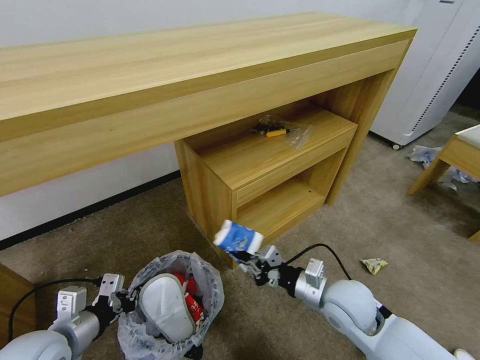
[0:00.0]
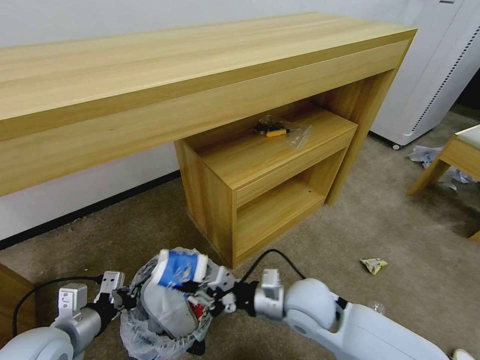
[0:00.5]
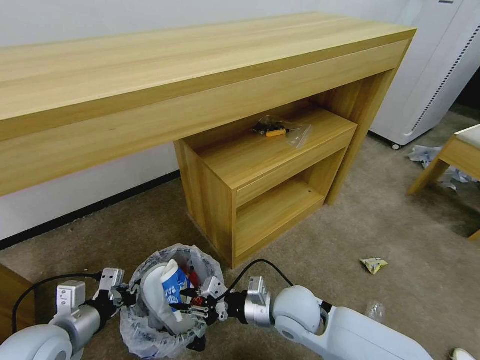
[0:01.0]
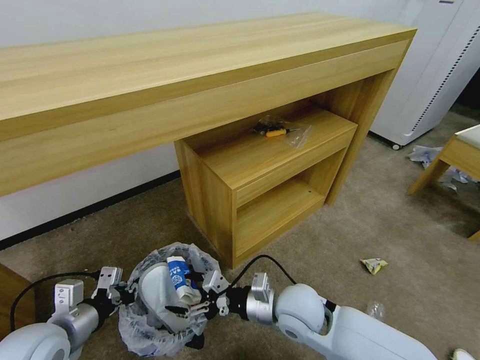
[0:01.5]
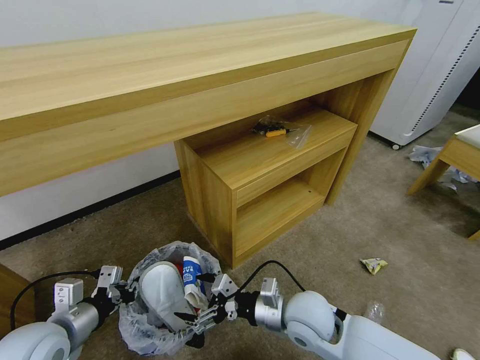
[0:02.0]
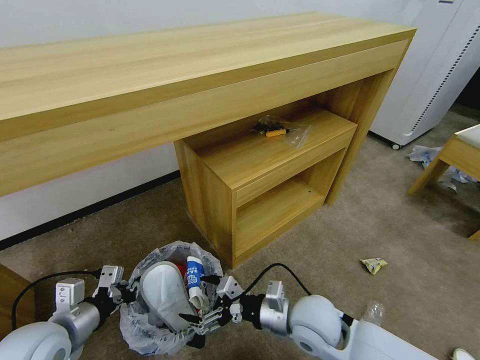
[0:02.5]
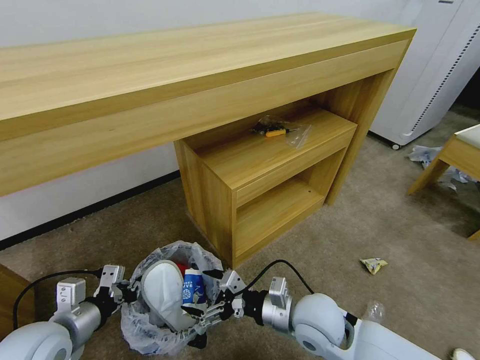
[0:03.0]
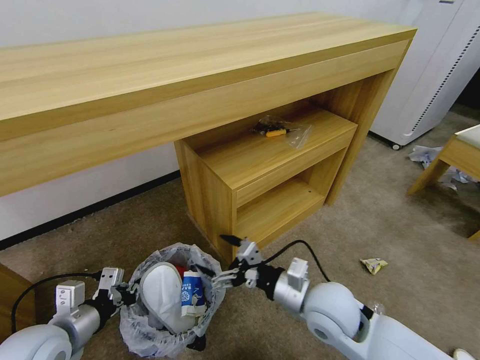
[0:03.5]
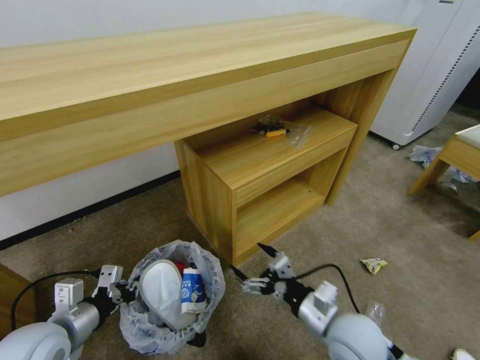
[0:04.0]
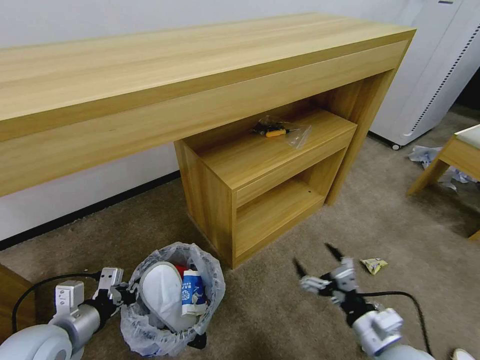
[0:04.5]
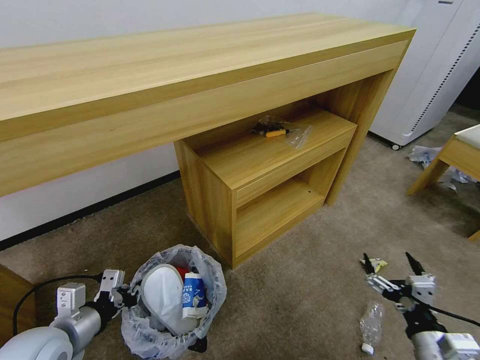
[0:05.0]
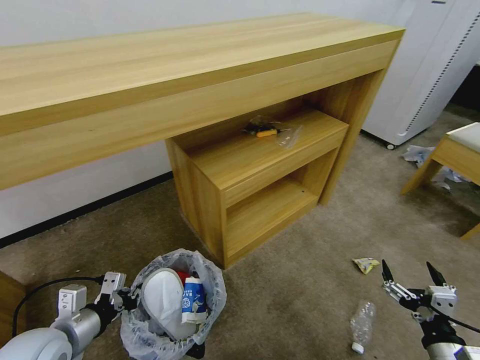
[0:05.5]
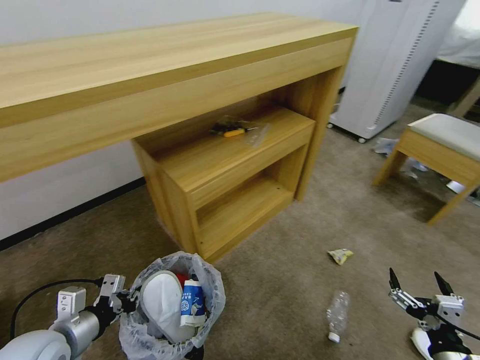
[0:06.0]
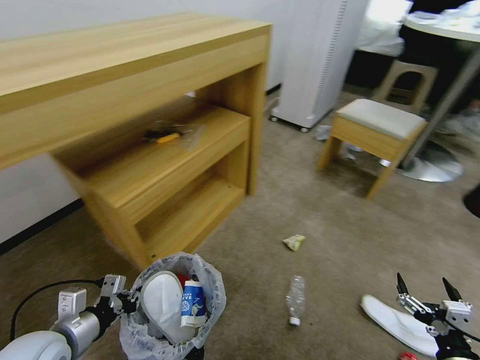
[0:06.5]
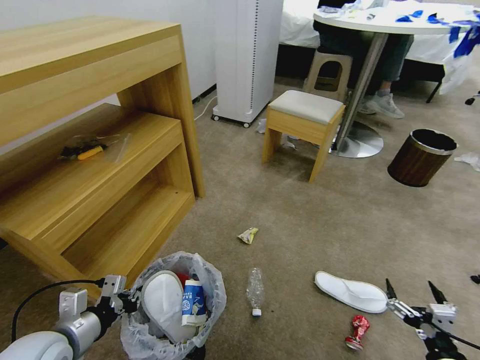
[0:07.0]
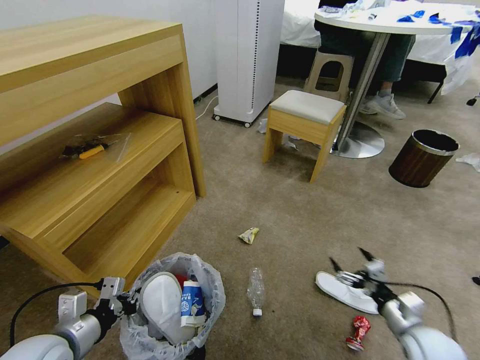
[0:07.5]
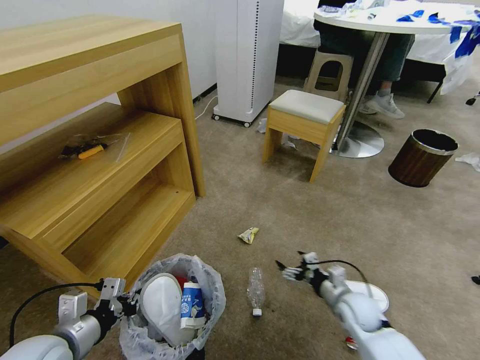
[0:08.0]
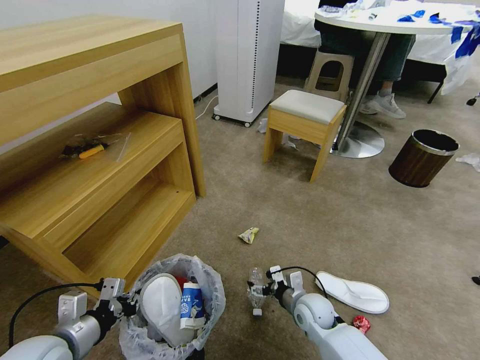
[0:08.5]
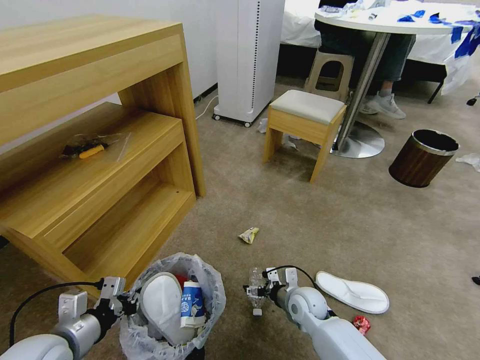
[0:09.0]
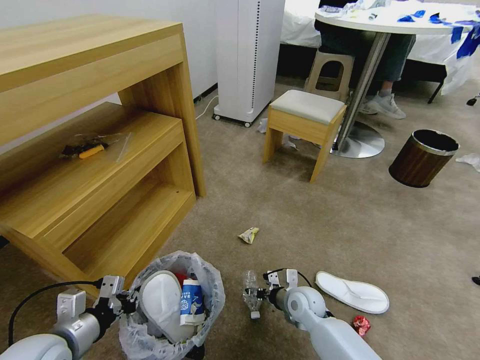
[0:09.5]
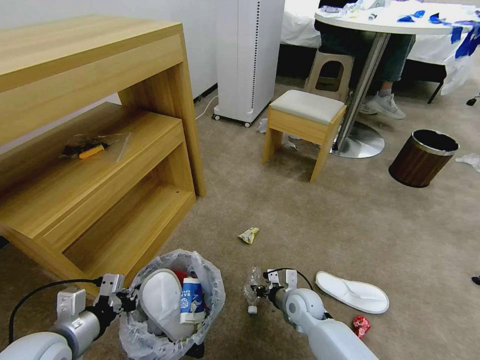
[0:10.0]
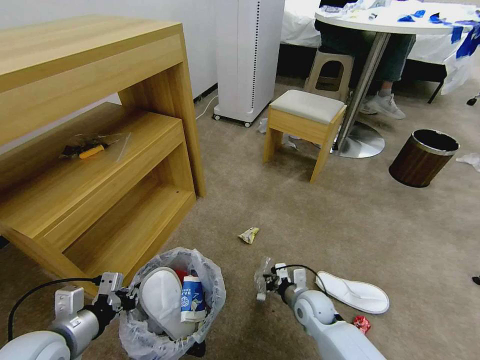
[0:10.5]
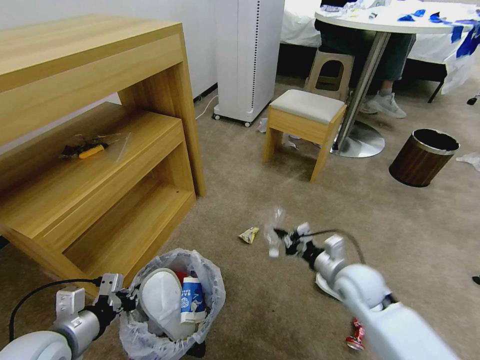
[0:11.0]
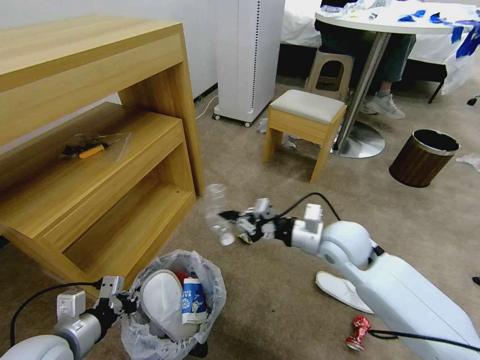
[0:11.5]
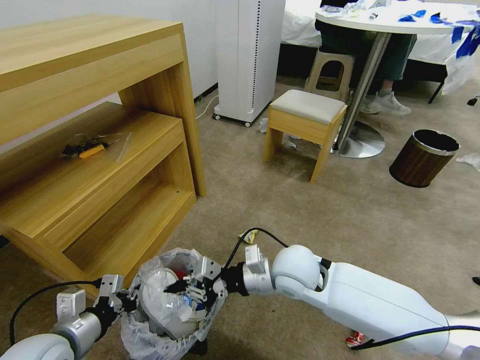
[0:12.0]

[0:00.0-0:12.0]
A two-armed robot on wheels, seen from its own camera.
Task of the whole recording: Pick up the trash bin and place the garbage on the floor into it.
0:00.0 to 0:02.0: The right gripper heads to the left, covering about 10 cm, and opens up.
0:02.0 to 0:04.0: The right gripper moves to the right, some 5 cm.
0:04.0 to 0:06.0: The right gripper moves to the right and backward, about 20 cm.
0:06.0 to 0:08.0: The right gripper shifts about 25 cm forward, to the left and downward.
0:08.0 to 0:10.0: The right gripper travels to the left by approximately 15 cm, and closes up.
0:10.0 to 0:12.0: The right gripper moves upward, approximately 20 cm.

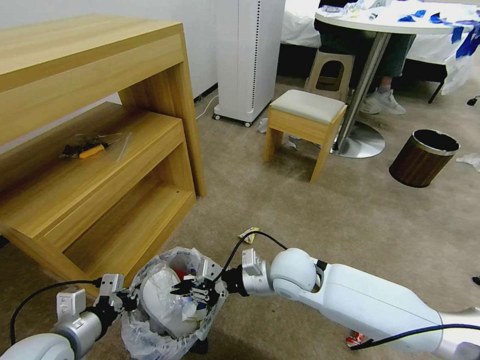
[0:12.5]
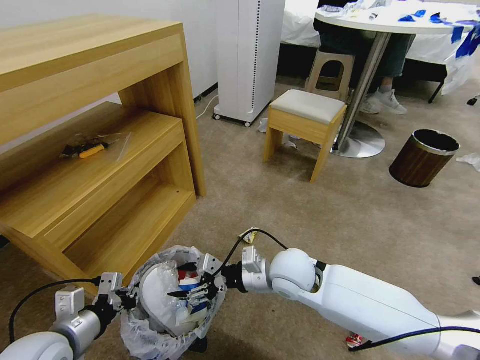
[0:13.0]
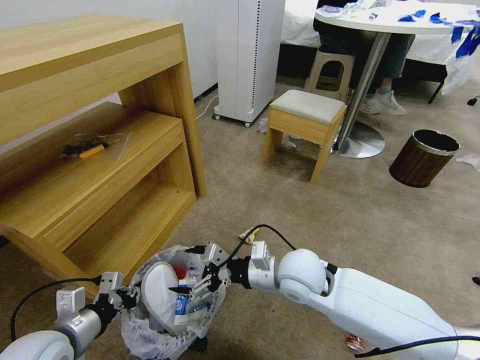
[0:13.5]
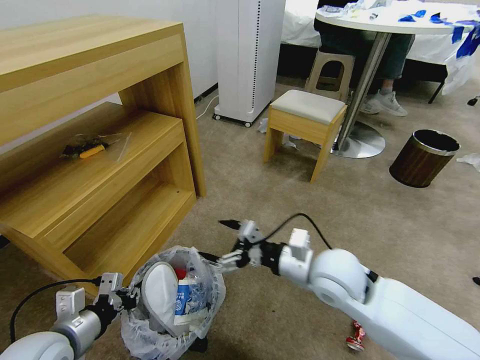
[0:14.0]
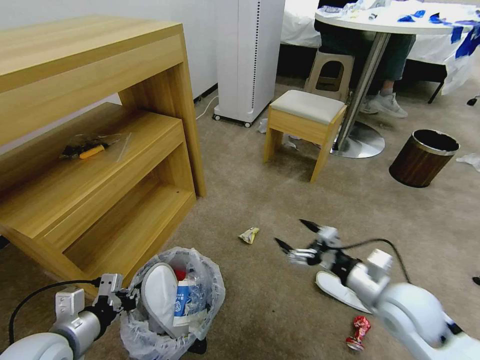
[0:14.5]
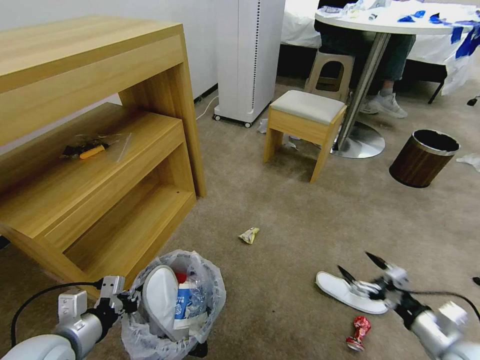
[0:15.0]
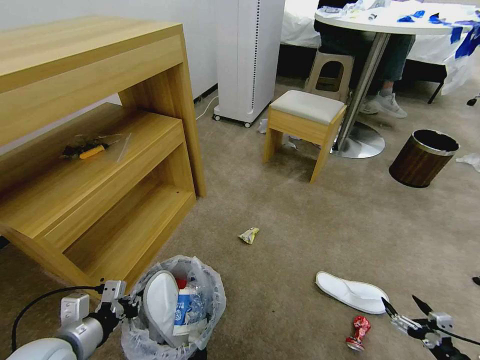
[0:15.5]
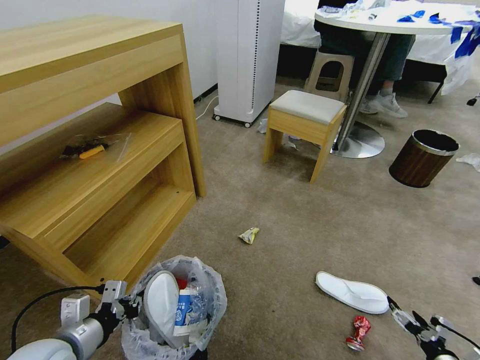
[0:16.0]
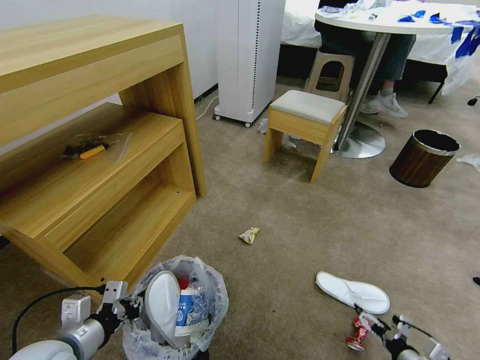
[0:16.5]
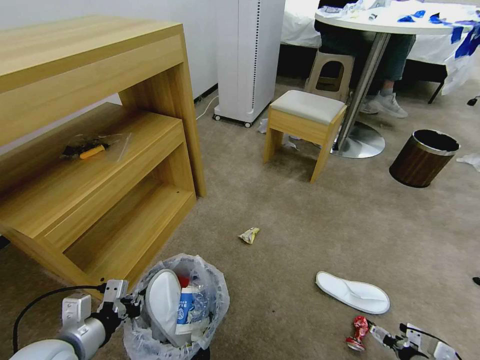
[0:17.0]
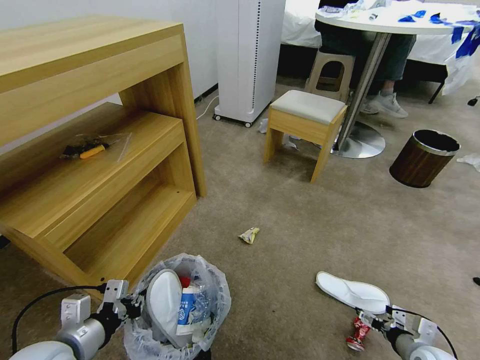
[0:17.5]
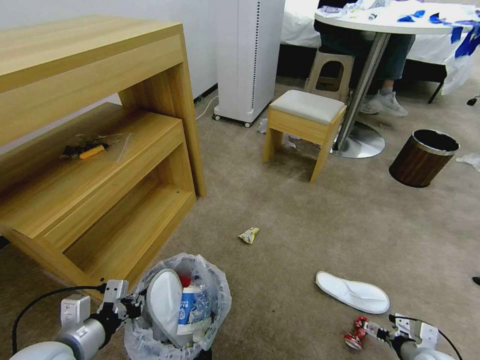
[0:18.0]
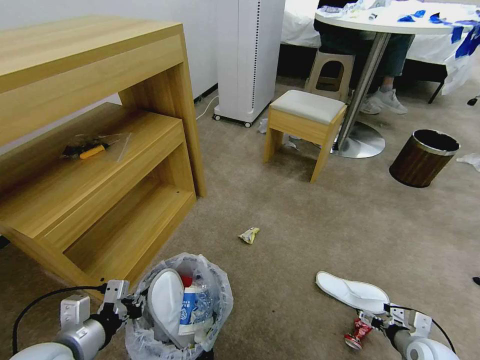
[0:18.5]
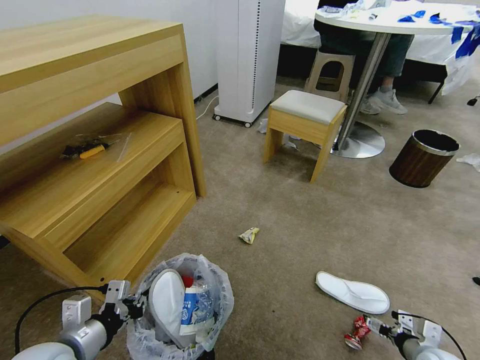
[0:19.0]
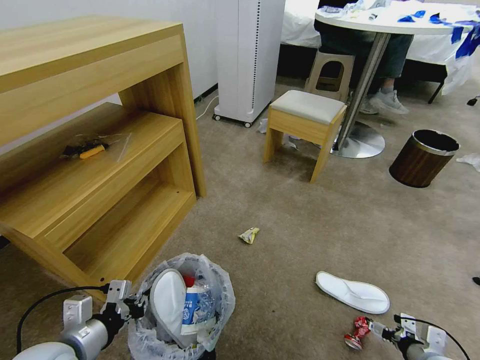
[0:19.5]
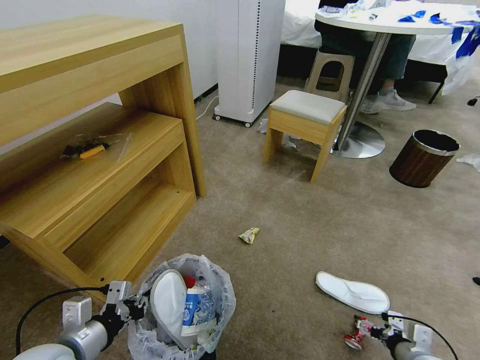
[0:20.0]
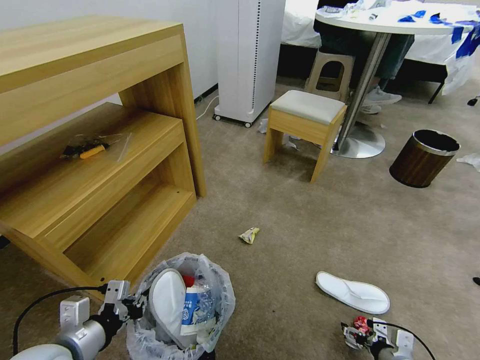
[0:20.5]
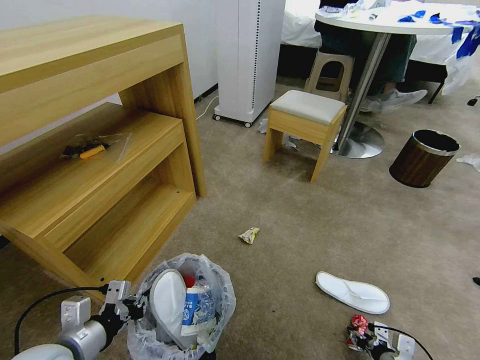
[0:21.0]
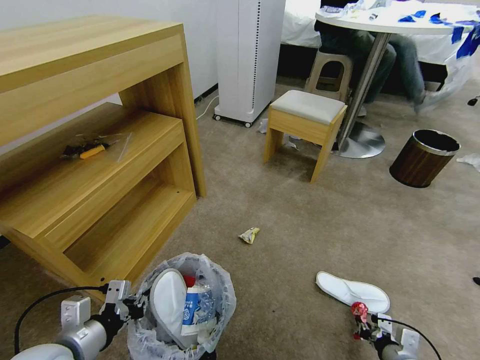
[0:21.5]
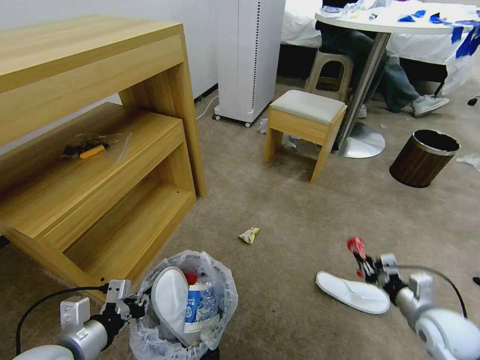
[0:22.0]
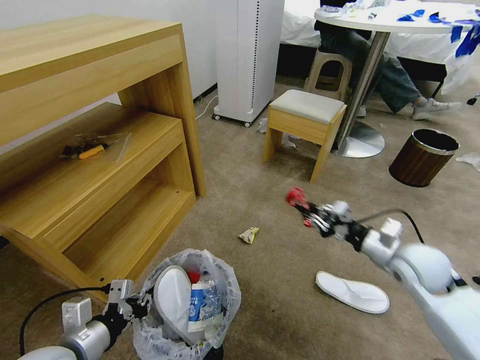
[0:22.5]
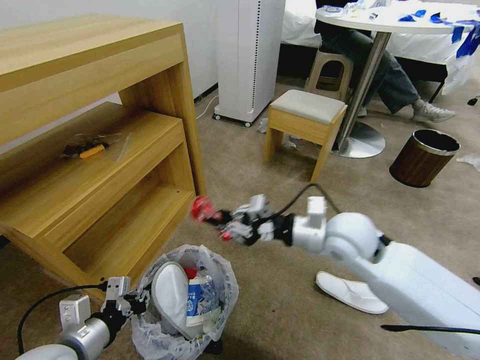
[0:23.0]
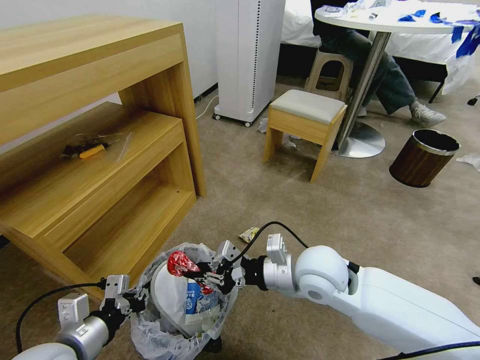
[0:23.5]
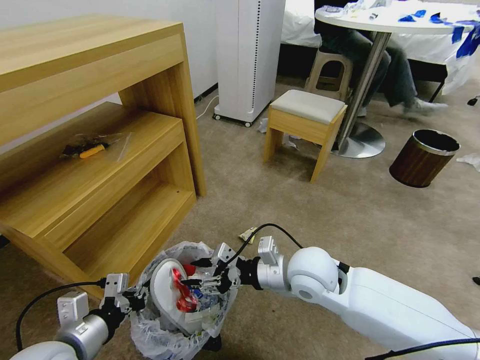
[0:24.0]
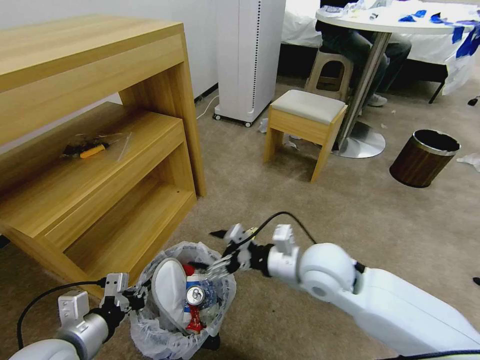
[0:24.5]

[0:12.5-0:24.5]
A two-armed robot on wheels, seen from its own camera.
Task of the whole recording: Pick up the trash bin and place the garbage on the floor into it.
0:12.5 to 0:14.5: The right gripper moves to the right, some 20 cm, and opens.
0:14.5 to 0:16.5: The right gripper shifts approximately 30 cm downward, to the right and backward.
0:16.5 to 0:18.5: The right gripper goes some 5 cm forward.
0:18.5 to 0:20.5: The right gripper heads to the left, covering approximately 5 cm.
0:20.5 to 0:22.5: The right gripper moves upward and forward, about 30 cm, and closes its fingers.
0:22.5 to 0:24.5: The right gripper goes roughly 20 cm to the left, and opens its fingers.

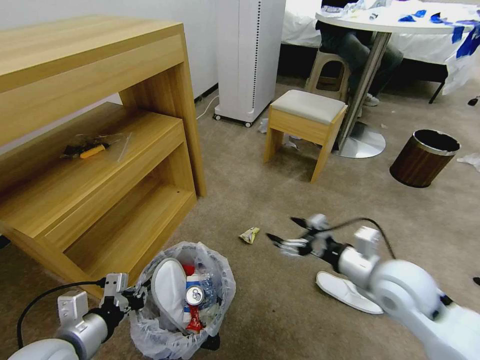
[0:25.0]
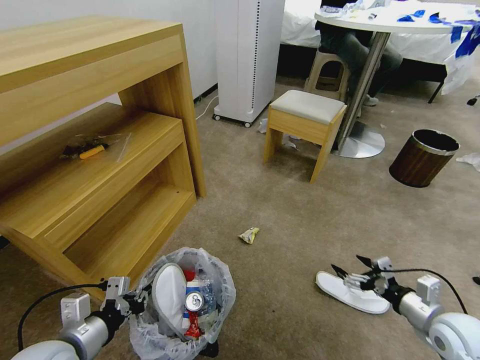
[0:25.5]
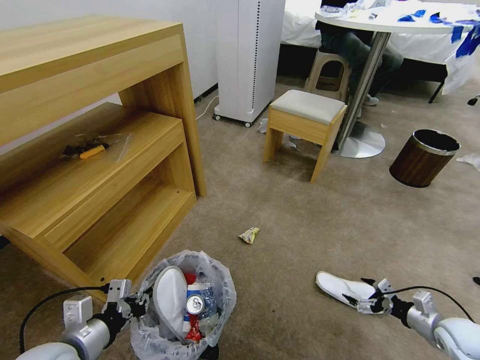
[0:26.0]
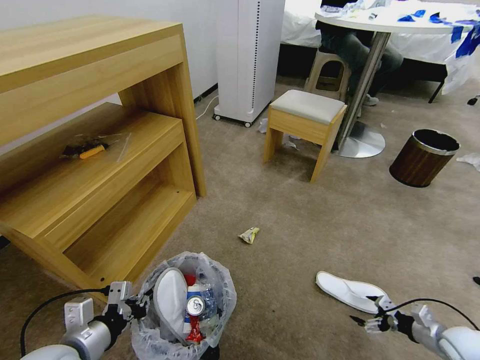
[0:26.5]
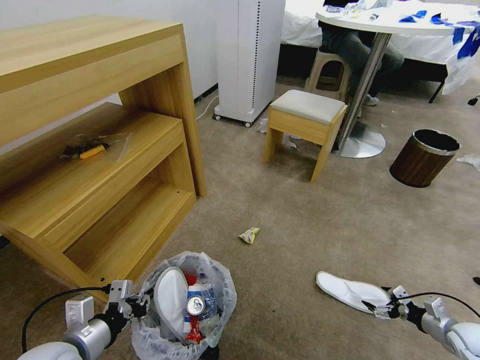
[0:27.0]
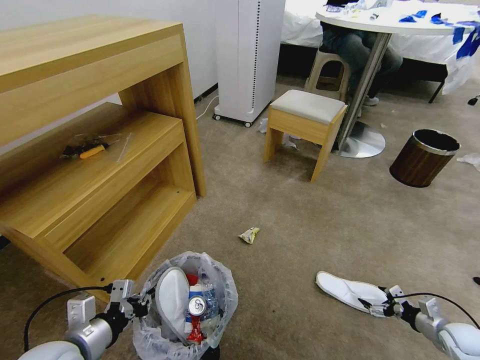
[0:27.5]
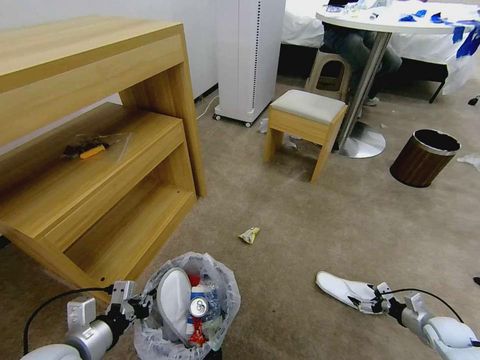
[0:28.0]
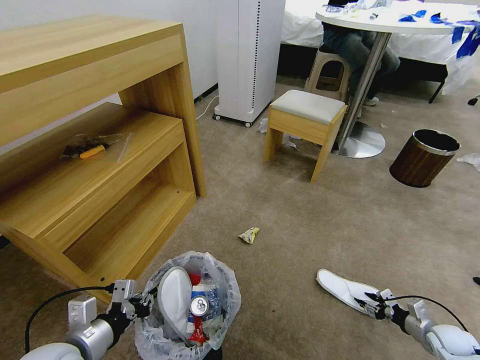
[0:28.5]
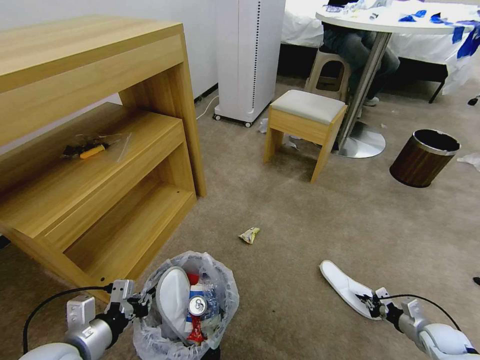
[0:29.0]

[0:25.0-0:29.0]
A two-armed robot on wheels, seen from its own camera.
Task of the whole recording: Pick up the trash bin and place the garbage on the floor into it.
0:25.0 to 0:27.0: The right gripper shifts approximately 35 cm to the right and downward.
0:27.0 to 0:29.0: The right gripper travels downward by approximately 5 cm, and closes its fingers.
